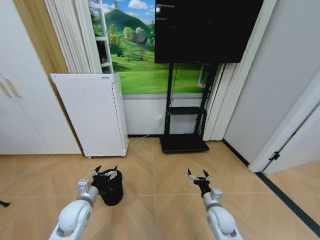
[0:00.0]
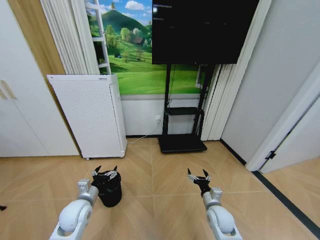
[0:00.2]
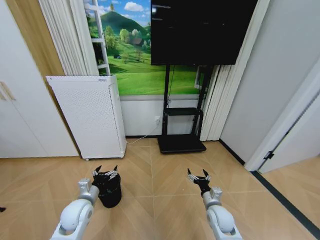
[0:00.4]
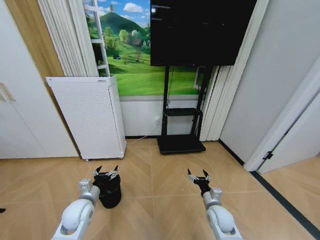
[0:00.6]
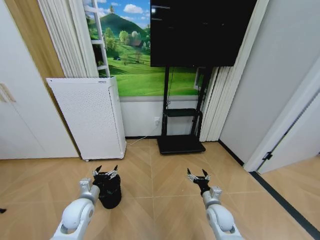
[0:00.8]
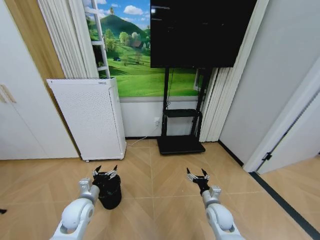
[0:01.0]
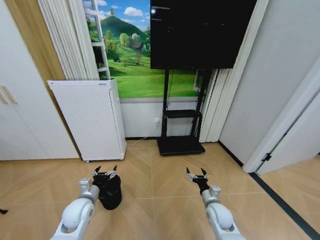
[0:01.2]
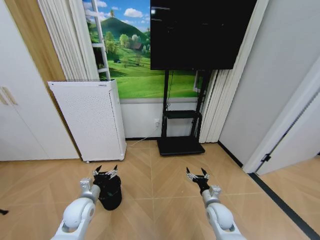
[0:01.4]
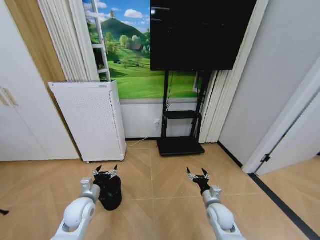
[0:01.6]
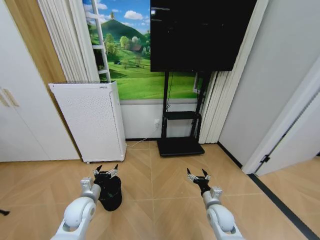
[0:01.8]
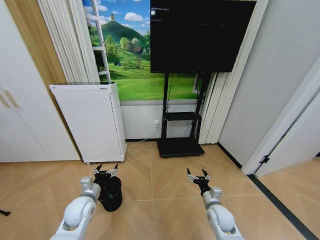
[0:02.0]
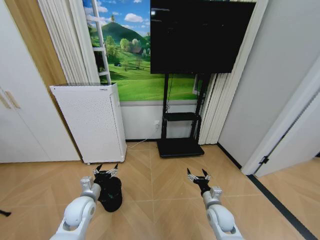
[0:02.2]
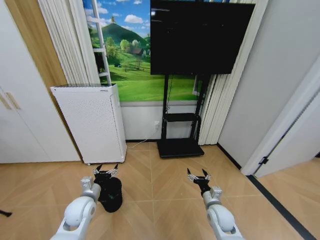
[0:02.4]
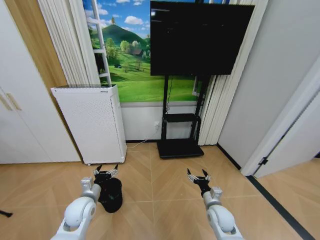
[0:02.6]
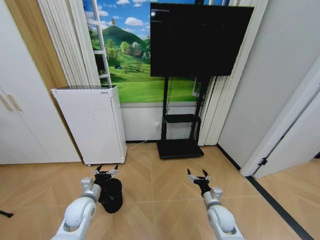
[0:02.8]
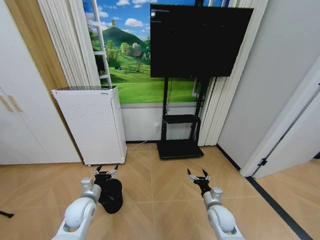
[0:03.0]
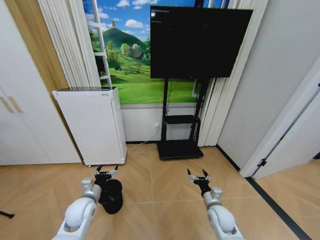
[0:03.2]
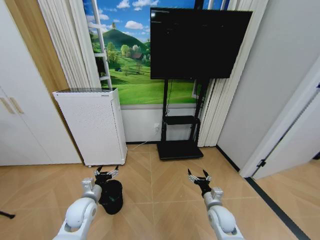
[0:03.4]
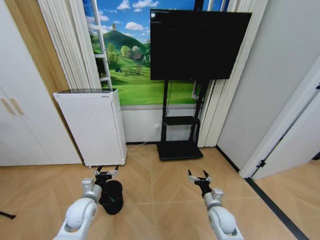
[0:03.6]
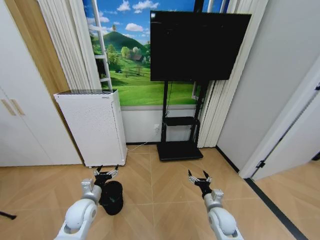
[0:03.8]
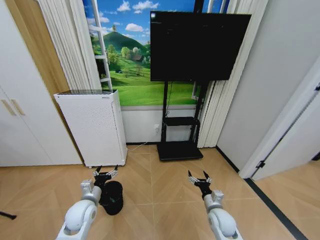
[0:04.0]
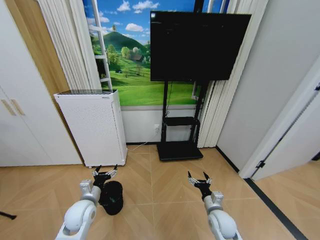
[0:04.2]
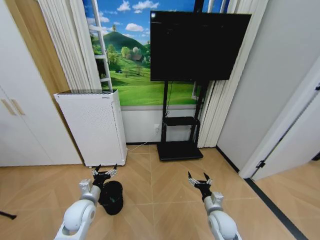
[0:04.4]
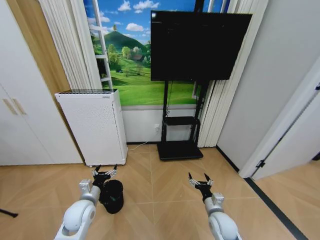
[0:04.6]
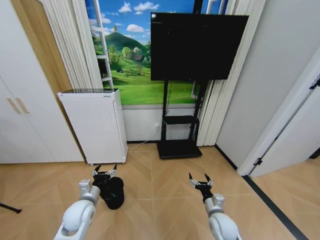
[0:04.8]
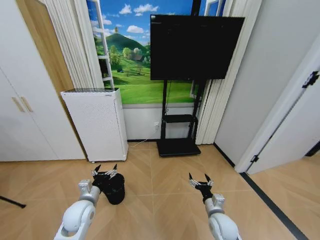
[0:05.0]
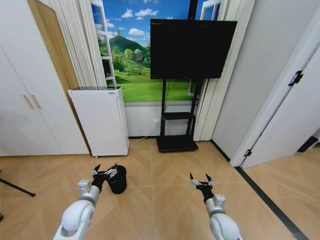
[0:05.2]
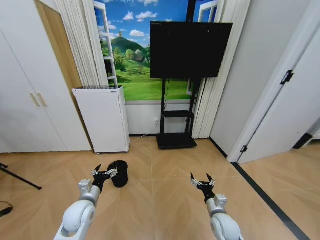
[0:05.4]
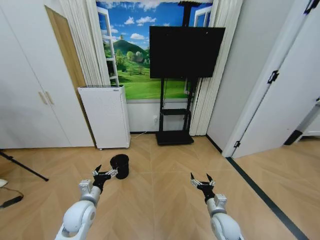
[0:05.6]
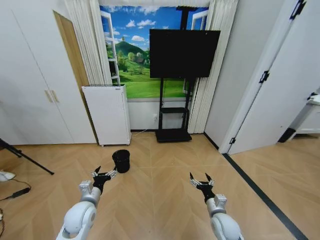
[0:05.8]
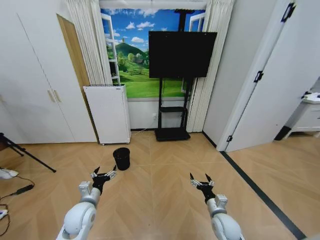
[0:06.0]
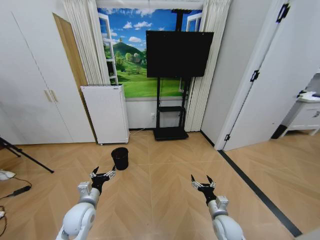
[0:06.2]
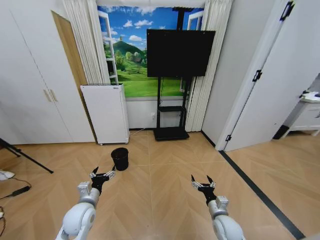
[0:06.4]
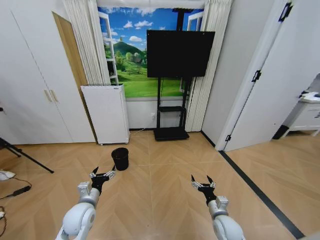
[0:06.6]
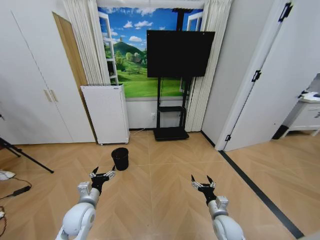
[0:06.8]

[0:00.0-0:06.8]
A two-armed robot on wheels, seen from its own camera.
Task of the whole recording: Pick up the trash bin and place the garbage on the floor into it.
0:01.4 to 0:02.8: The two grippers keep their place.
0:02.8 to 0:04.0: Both grippers stay put.
